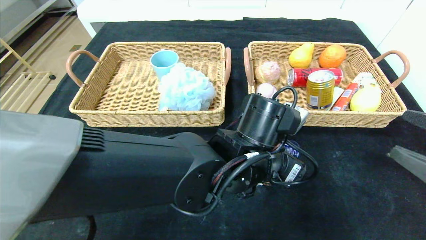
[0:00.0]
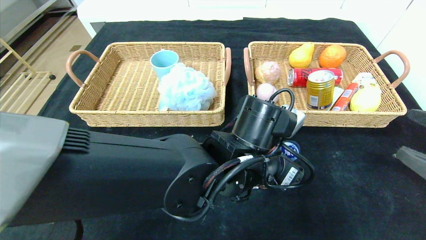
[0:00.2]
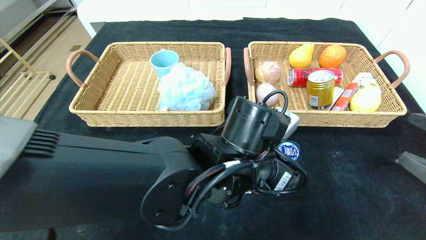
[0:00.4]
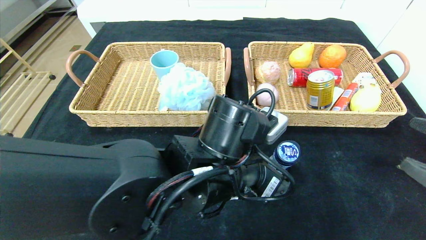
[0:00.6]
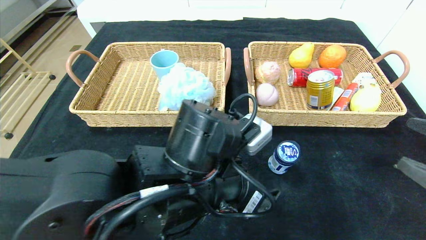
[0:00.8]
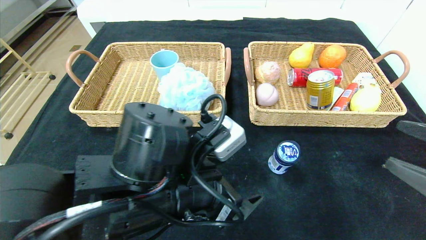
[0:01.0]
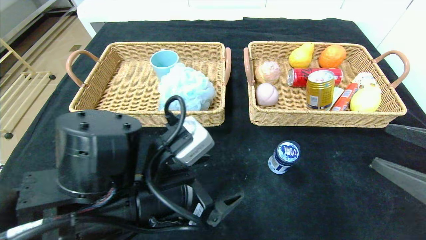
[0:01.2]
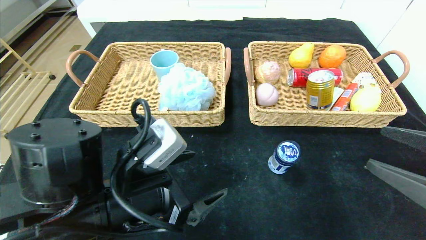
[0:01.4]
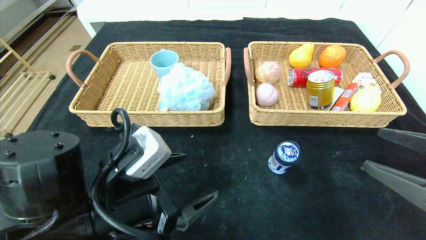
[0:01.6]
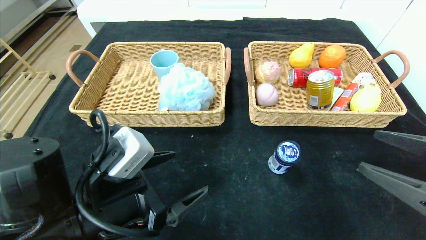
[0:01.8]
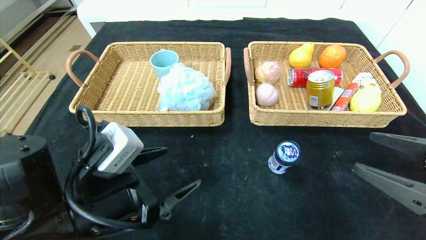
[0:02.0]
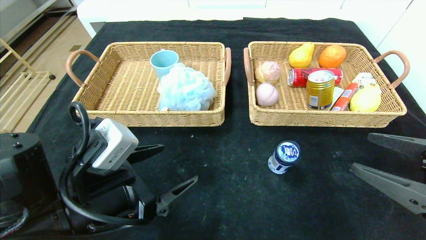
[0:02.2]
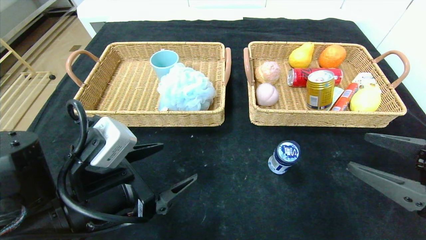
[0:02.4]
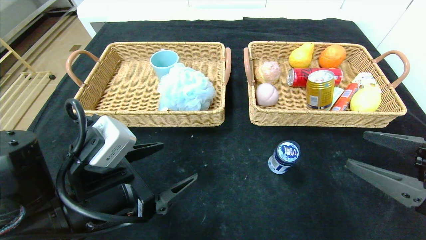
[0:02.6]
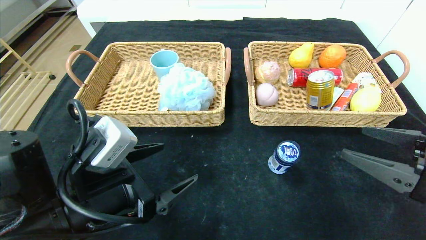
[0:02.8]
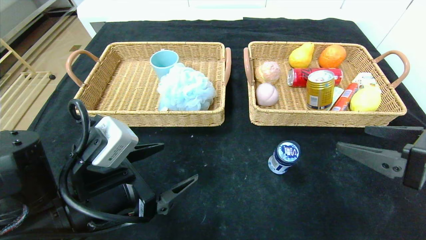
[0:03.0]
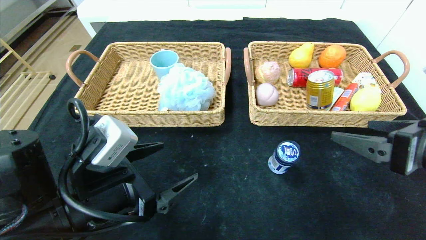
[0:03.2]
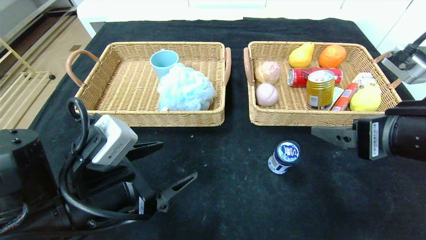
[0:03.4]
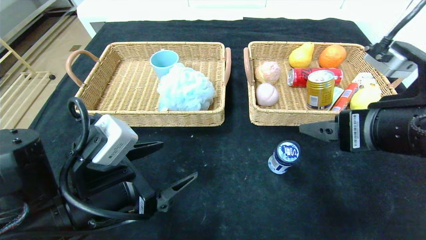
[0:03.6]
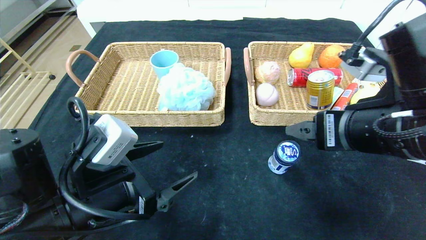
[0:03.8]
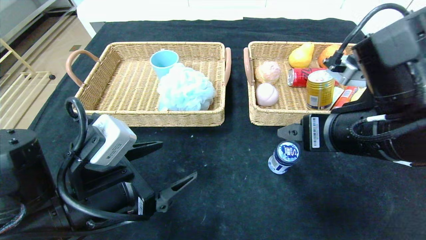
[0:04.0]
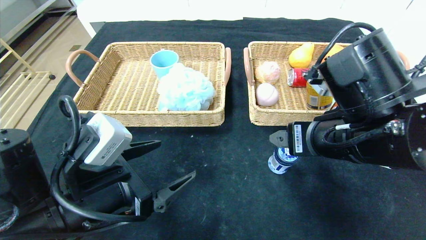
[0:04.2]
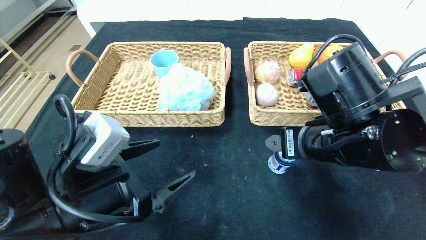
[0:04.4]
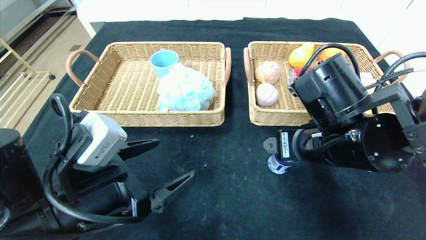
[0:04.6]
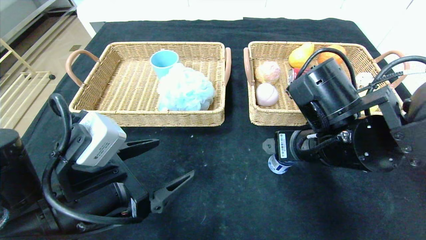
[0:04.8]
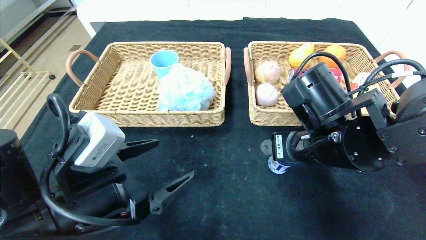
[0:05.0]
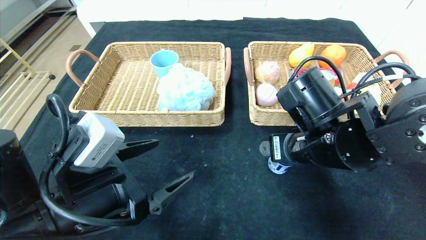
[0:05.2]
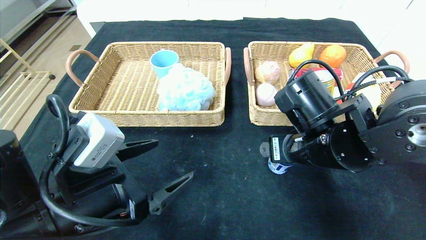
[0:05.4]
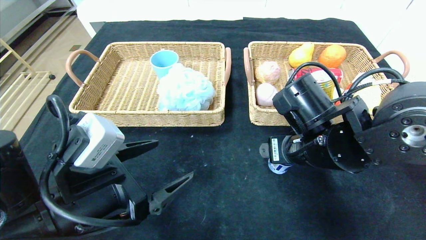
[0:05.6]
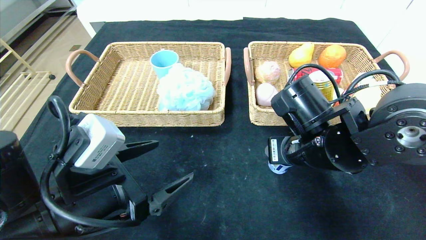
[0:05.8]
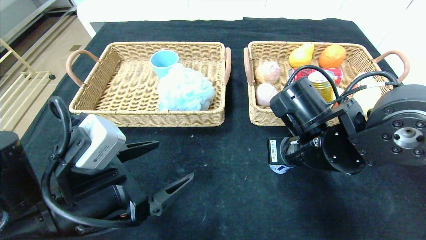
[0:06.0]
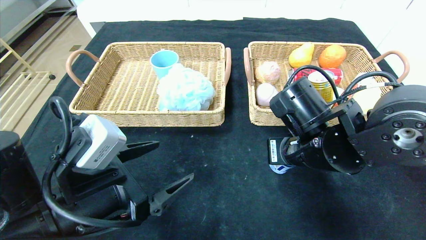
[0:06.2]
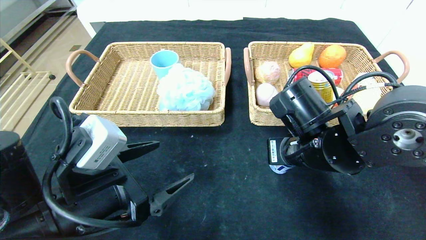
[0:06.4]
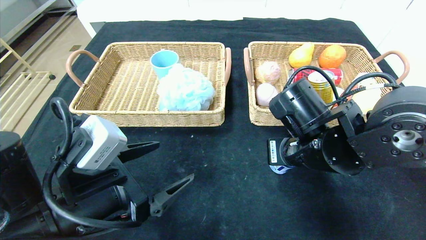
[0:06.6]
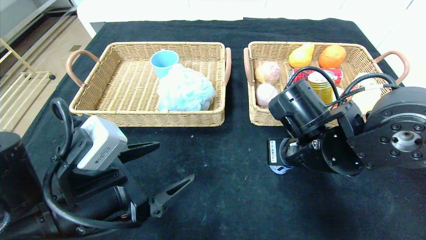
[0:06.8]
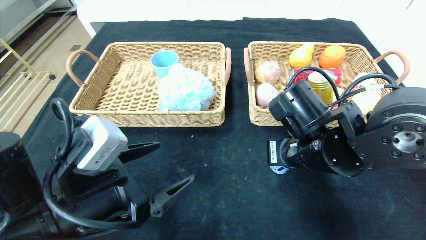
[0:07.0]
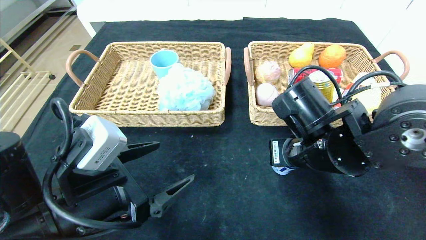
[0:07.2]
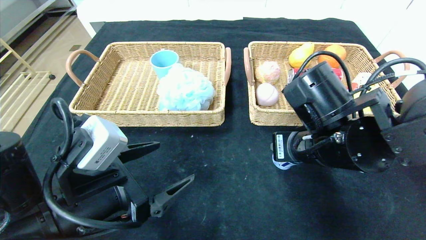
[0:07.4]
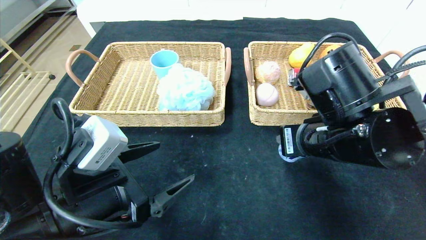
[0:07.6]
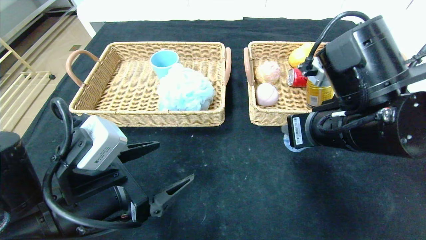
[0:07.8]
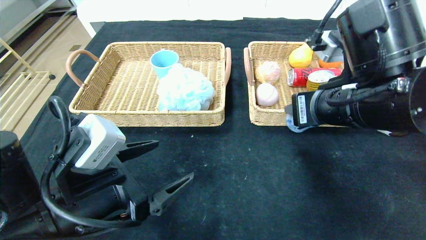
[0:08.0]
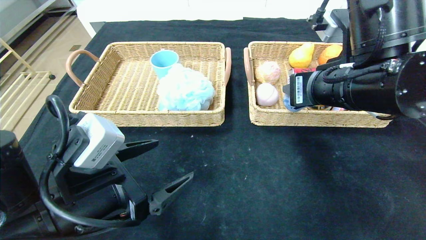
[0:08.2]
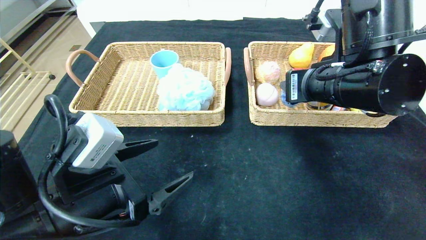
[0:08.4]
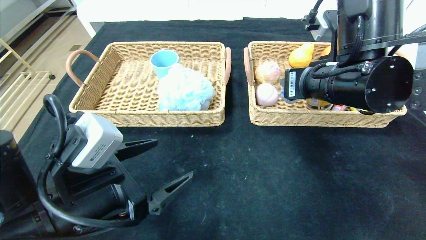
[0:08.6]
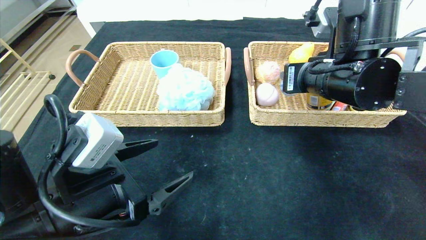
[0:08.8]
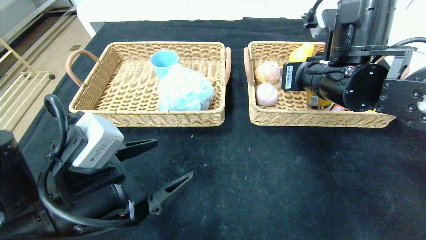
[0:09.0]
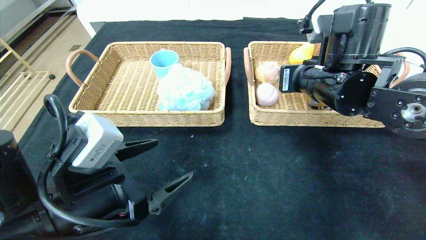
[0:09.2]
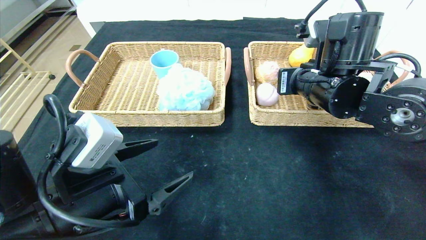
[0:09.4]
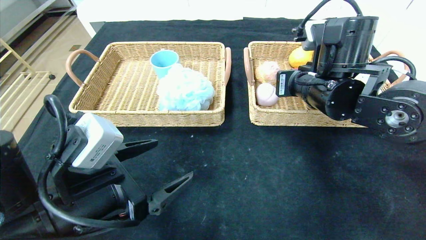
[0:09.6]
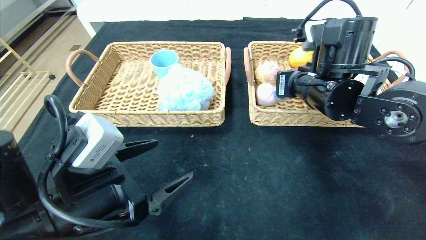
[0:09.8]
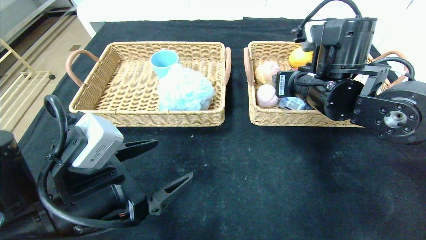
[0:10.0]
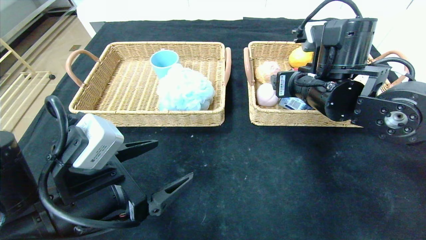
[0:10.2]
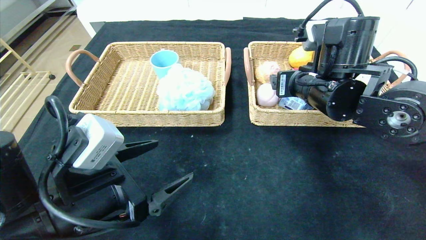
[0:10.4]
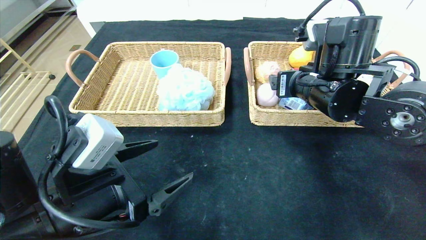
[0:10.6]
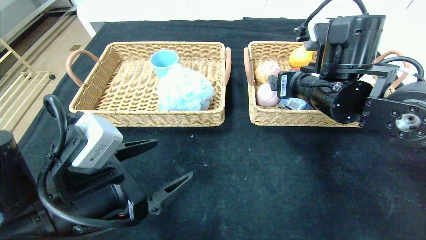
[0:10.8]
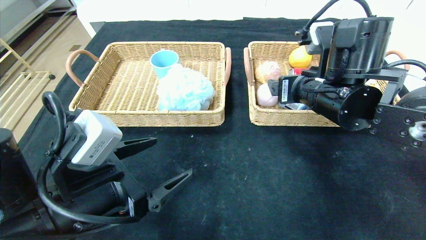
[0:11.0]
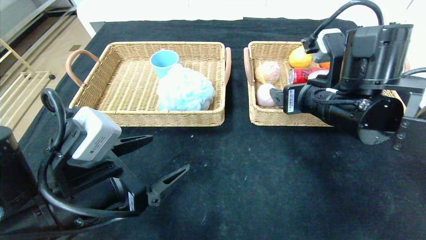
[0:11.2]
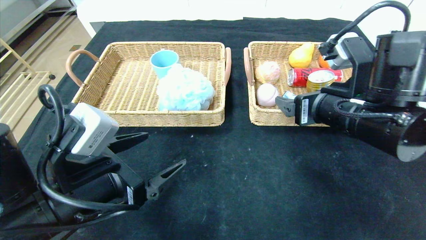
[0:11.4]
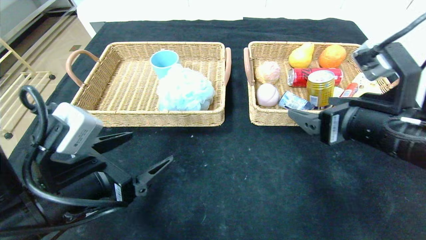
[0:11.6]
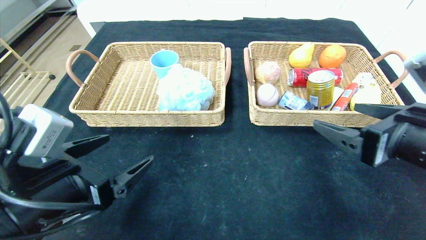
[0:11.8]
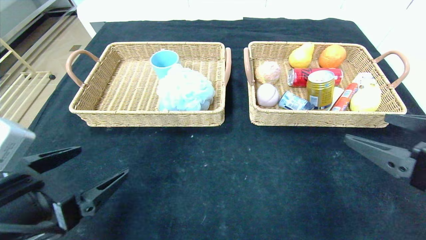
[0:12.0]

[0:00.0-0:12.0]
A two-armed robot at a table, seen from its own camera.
Step, 0:00.6 to 0:09.8: Grasp the round chewing gum and put it in the right basket.
0:00.0 to 0:01.6: The left gripper goes about 20 cm to the left and backward.
0:01.6 to 0:03.0: There are only small adjustments of the grippers.
0:03.0 to 0:04.4: The right gripper moves to the left and forward, some 15 cm.
0:04.4 to 0:06.0: The right gripper ends up roughly 5 cm from where it was, and closes.
0:06.0 to 0:07.6: The right gripper changes place by about 5 cm.
0:07.6 to 0:09.0: The right gripper heads forward, covering about 10 cm.
0:09.0 to 0:10.4: The right gripper opens.
0:10.4 to 0:12.0: The right gripper goes roughly 25 cm backward and to the right; the left gripper travels to the left by roughly 5 cm.

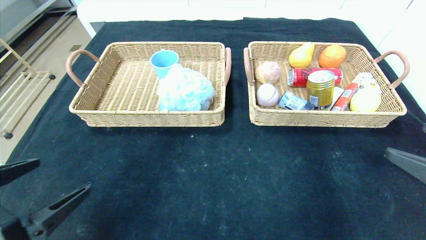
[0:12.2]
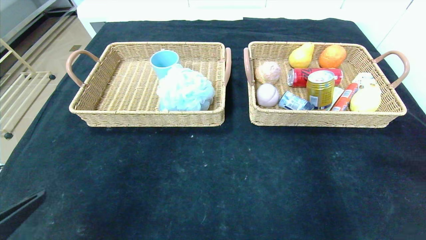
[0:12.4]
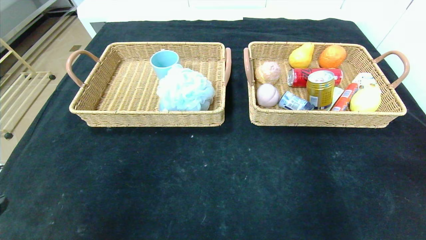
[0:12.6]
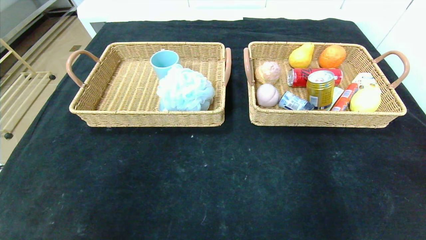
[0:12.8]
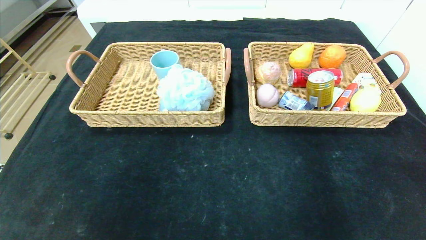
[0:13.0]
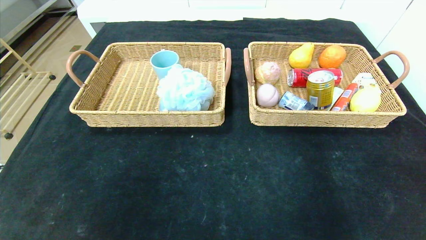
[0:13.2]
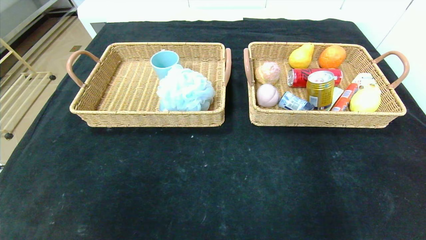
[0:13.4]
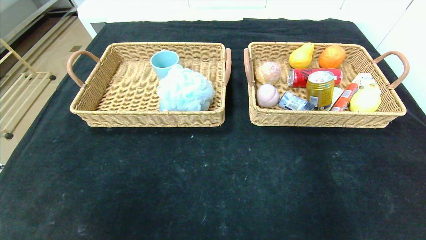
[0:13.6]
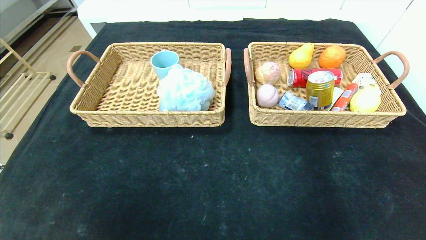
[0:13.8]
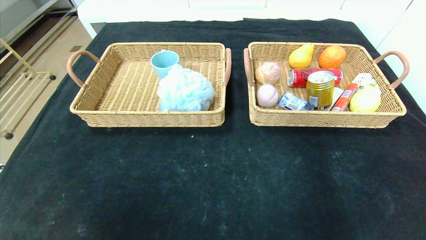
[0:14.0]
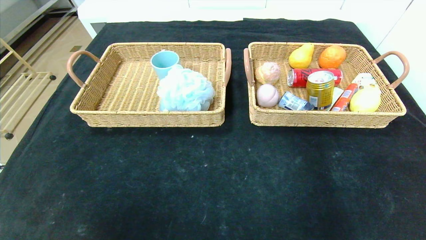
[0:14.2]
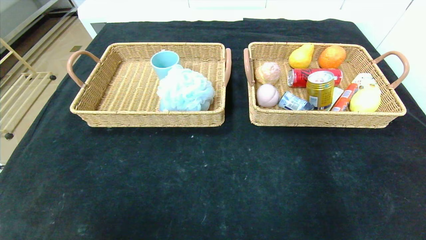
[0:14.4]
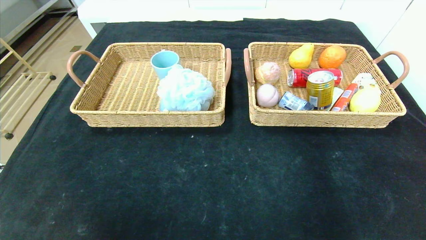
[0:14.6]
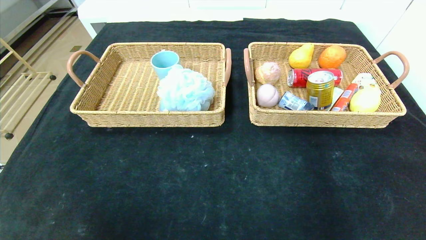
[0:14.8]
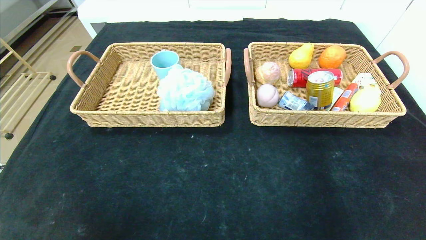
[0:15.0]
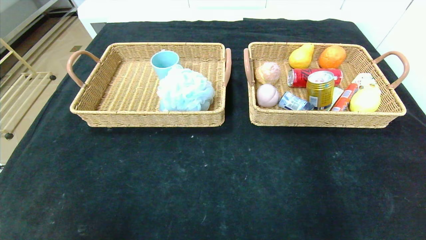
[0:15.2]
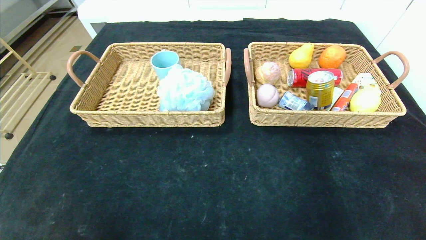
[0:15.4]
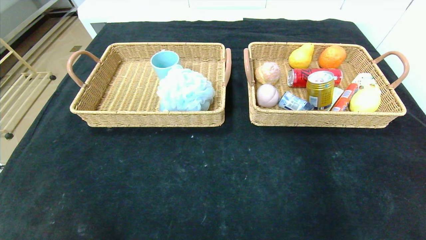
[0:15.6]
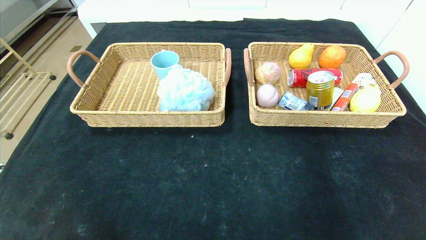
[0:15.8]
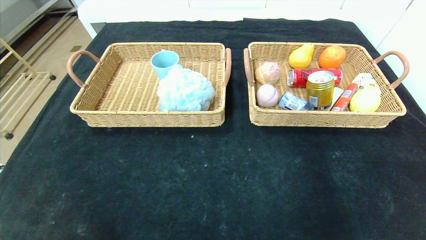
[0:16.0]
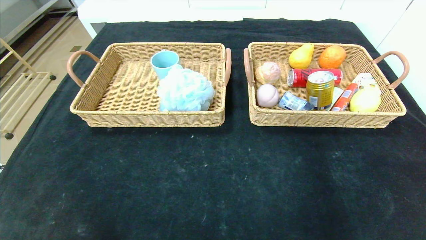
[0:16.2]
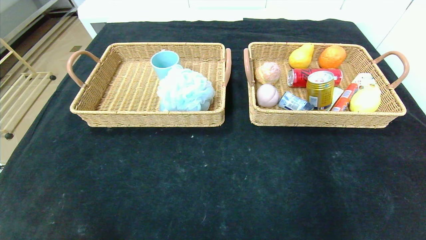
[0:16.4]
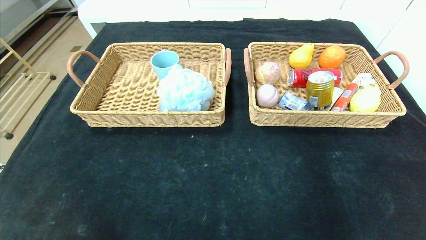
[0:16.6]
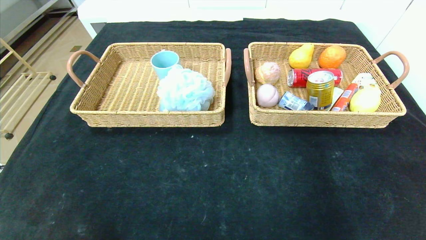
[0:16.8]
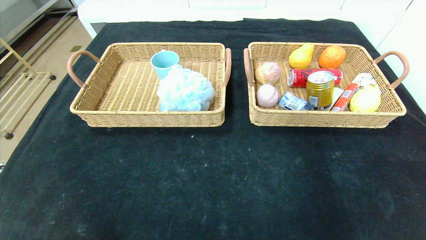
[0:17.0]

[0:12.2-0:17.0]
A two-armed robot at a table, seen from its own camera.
0:12.2 to 0:13.8: The two grippers go roughly 15 cm backward.
